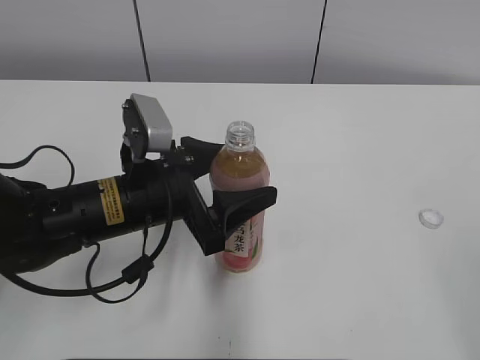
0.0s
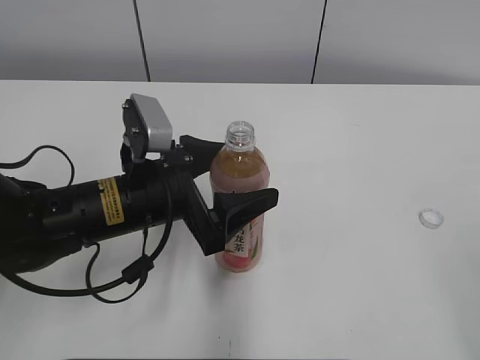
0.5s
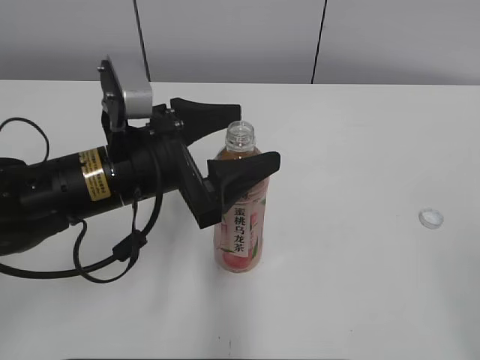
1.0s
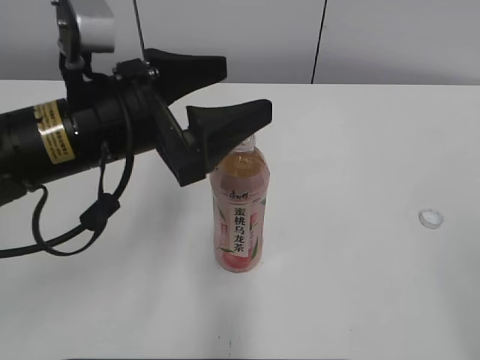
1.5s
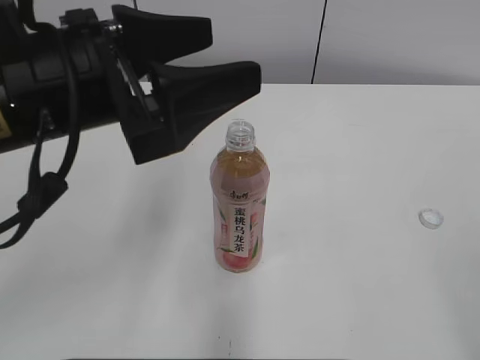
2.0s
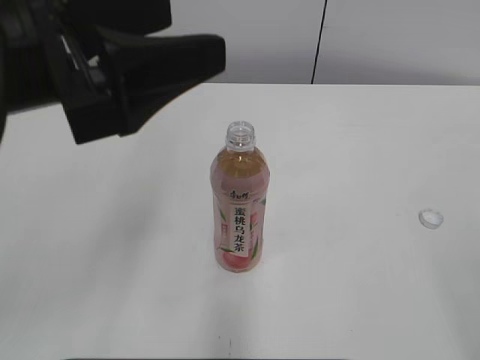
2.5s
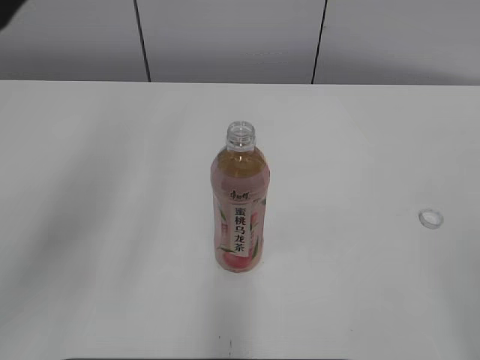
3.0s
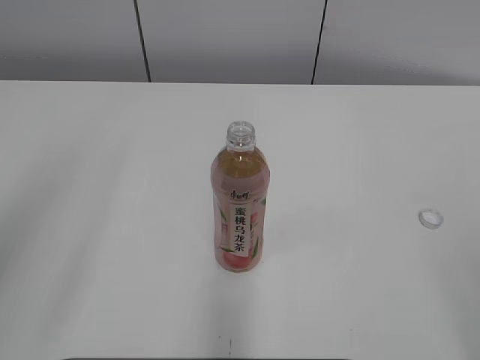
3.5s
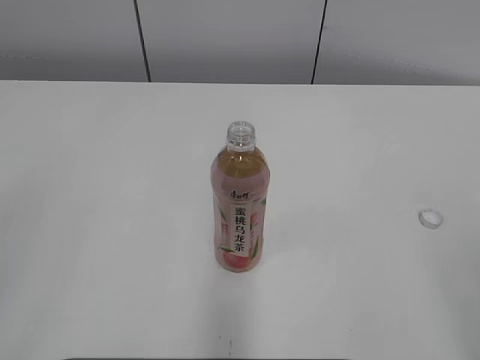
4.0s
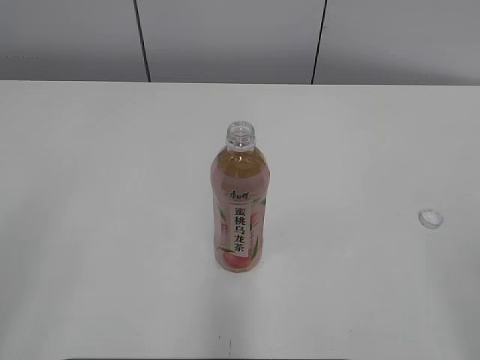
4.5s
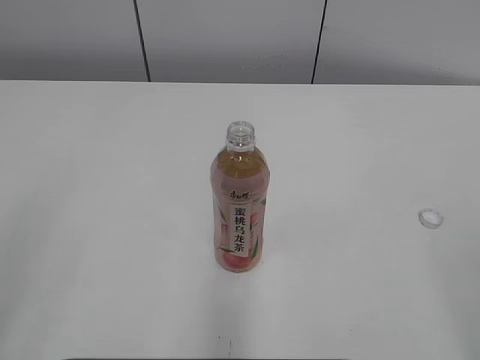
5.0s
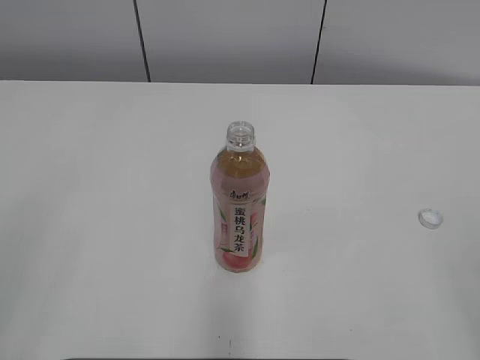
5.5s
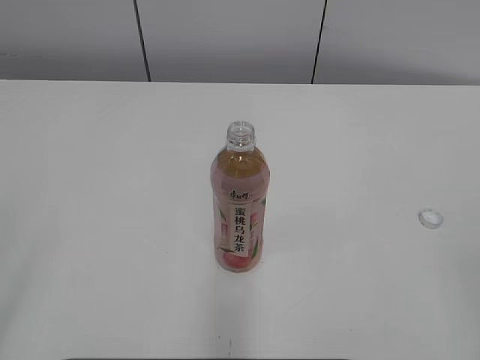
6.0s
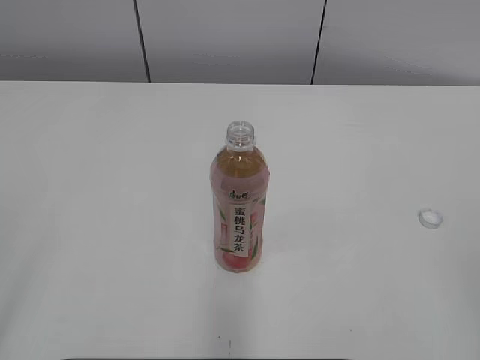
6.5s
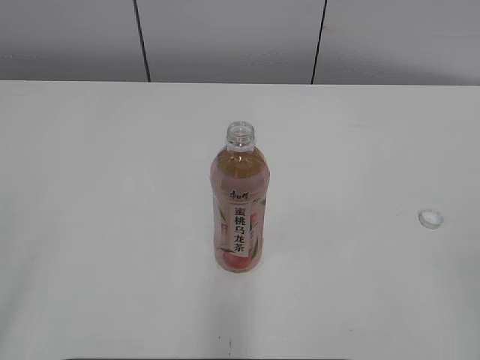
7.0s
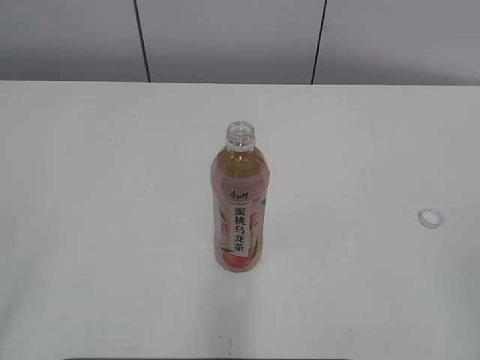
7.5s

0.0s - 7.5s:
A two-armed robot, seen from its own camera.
0.0s - 2.0s: The left gripper goes some 15 cm upward.
2.0s - 4.0s: The left gripper is displaced backward and to the left by approximately 25 cm.

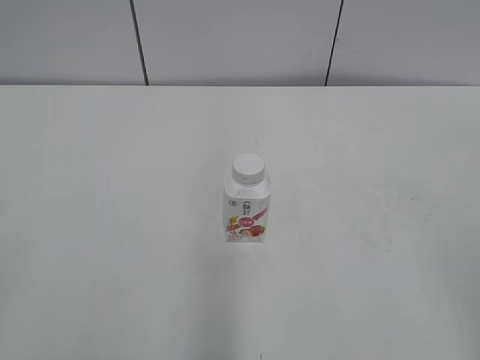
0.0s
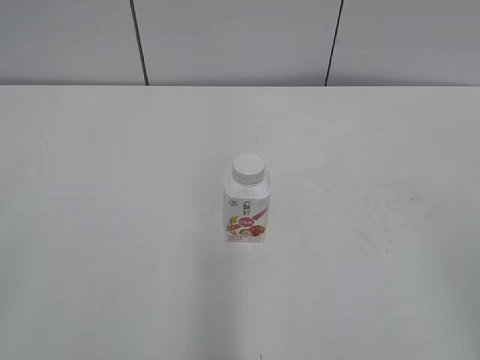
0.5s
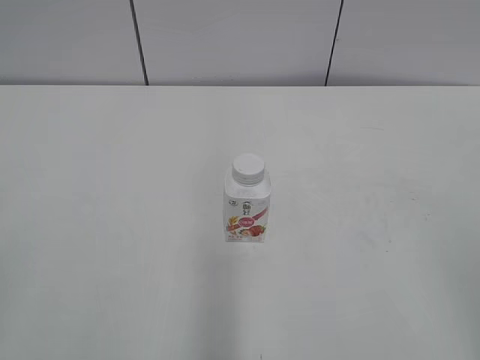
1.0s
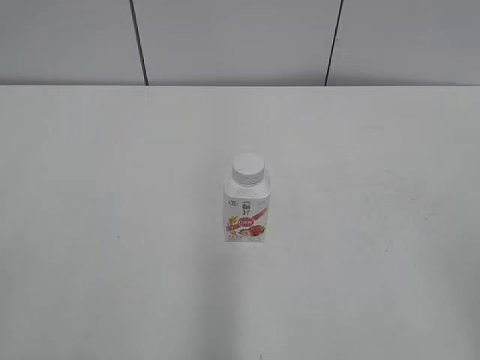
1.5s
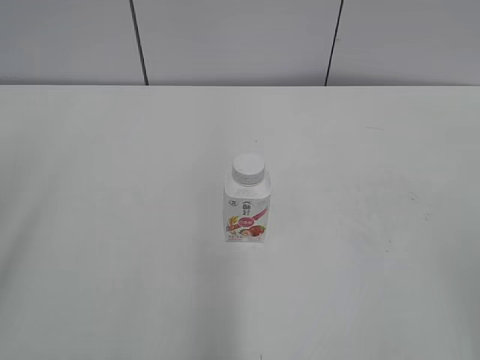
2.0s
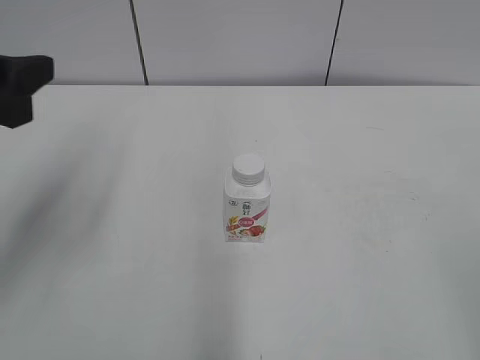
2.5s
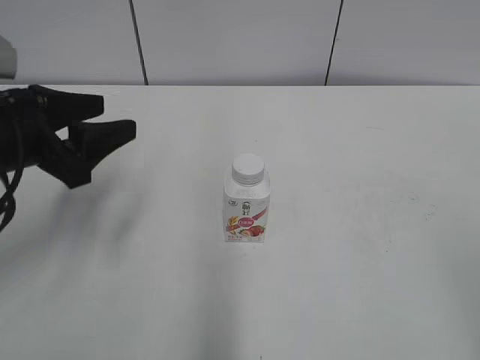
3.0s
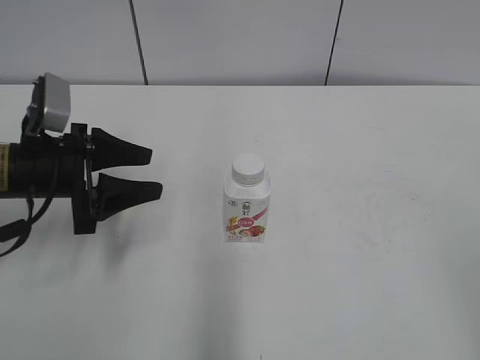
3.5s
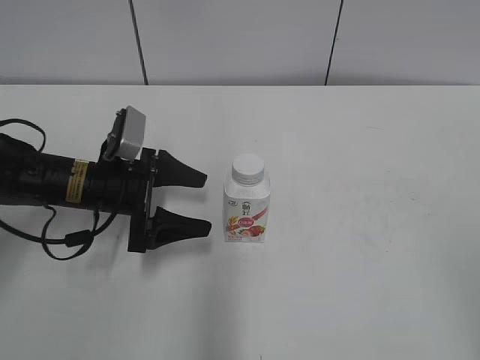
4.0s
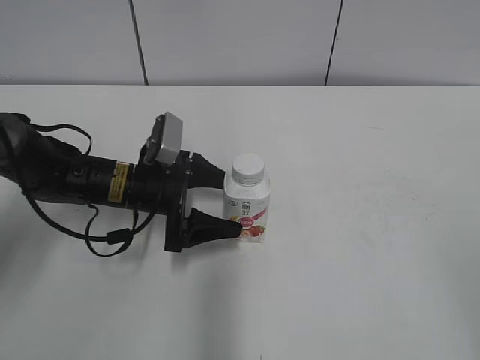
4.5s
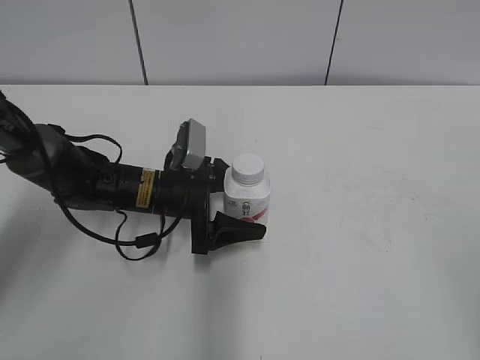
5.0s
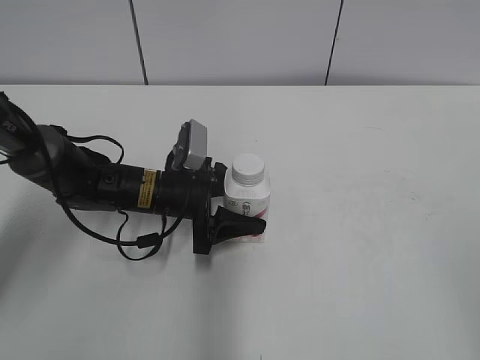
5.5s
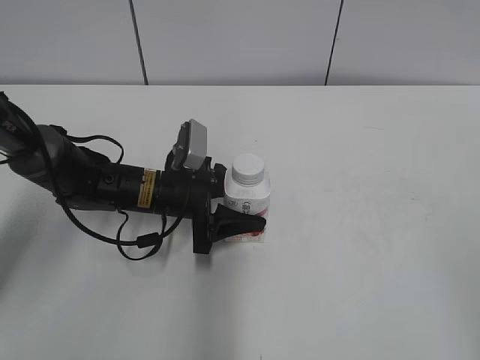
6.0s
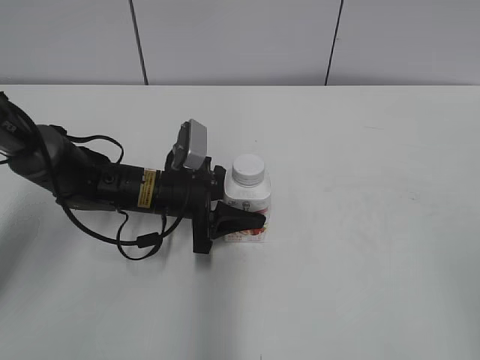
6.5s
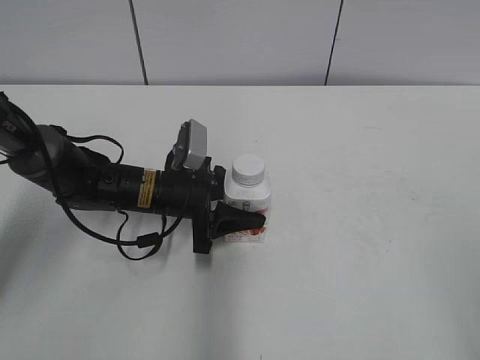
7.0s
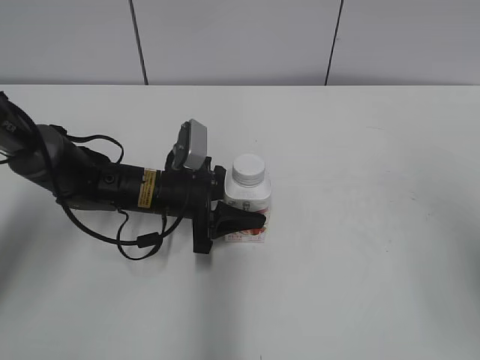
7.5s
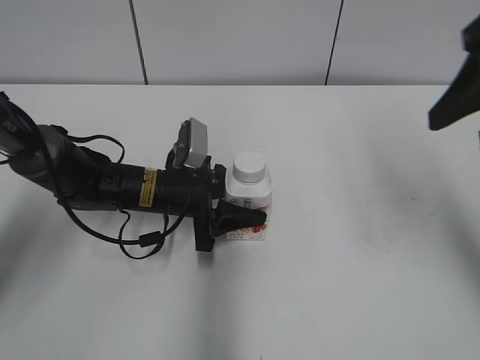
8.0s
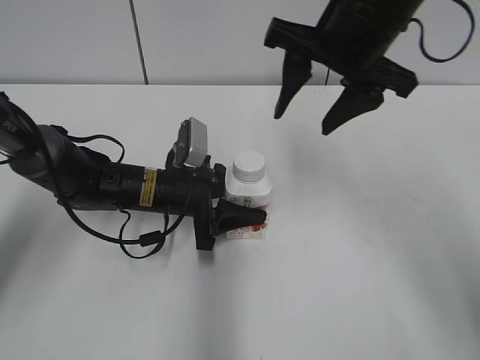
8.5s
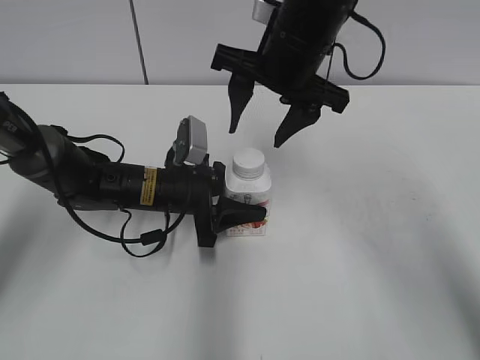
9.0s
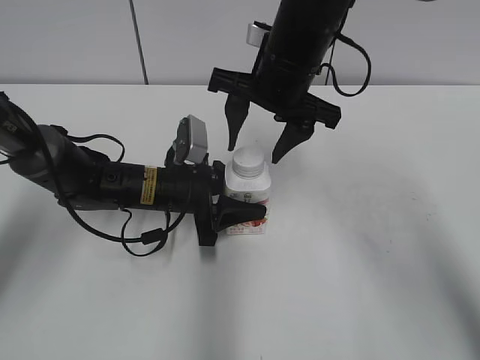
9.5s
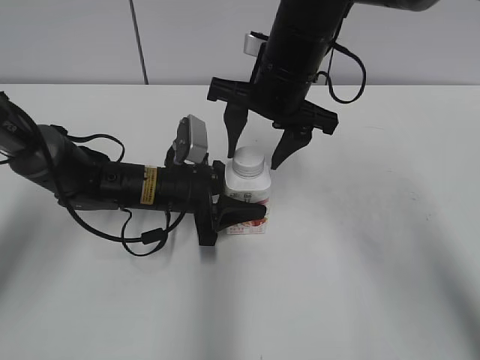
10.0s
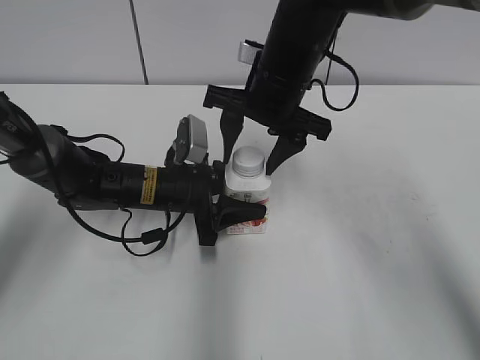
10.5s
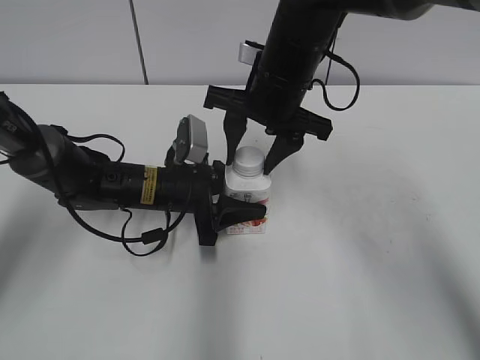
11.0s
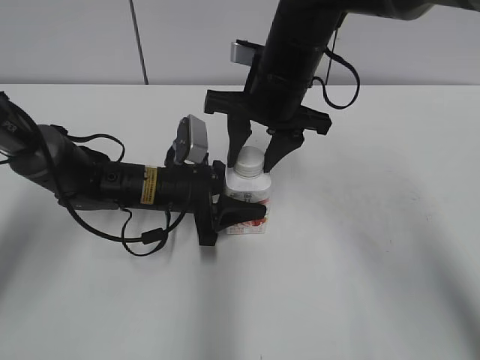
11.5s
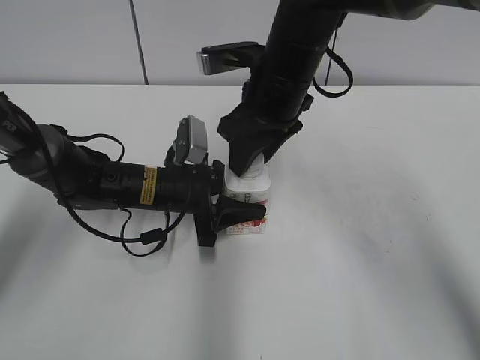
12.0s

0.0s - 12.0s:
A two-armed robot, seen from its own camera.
Step, 0.0s - 5.5s: Grab the Yili Changqing with the left hand.
2.0s - 4.0s: The left gripper shifts about 40 cm downward, forward and to the right.
4.0s - 6.0s: The left gripper heads to the right, covering about 5 cm, and closes its fingers.
6.0s - 8.0s: The right gripper moves forward, some 25 cm.
8.0s - 10.0s: The right gripper heads to the left, forward and downward, covering approximately 25 cm.
10.0s - 12.0s: The right gripper closes its fingers.

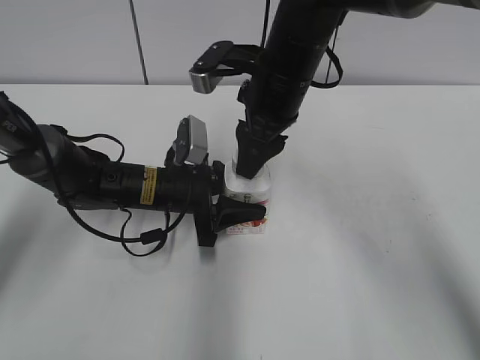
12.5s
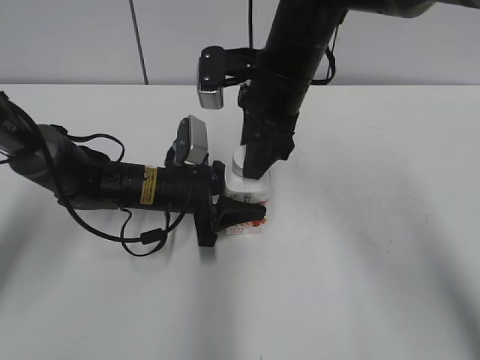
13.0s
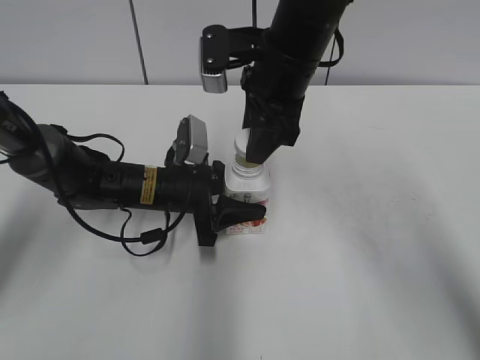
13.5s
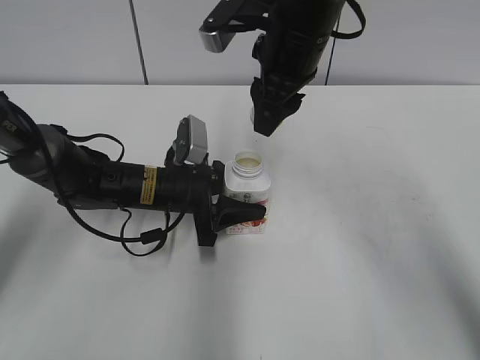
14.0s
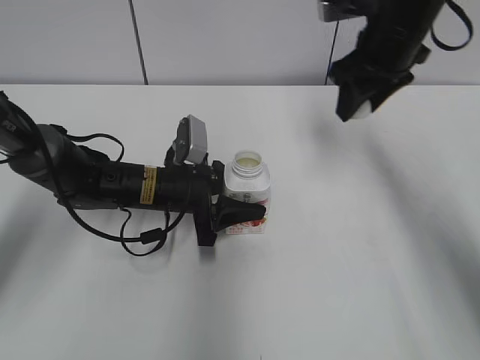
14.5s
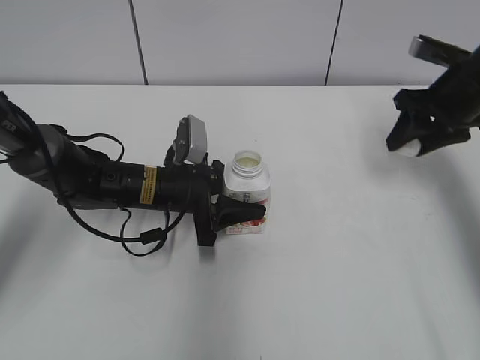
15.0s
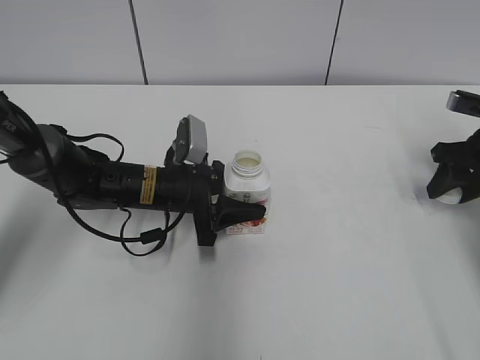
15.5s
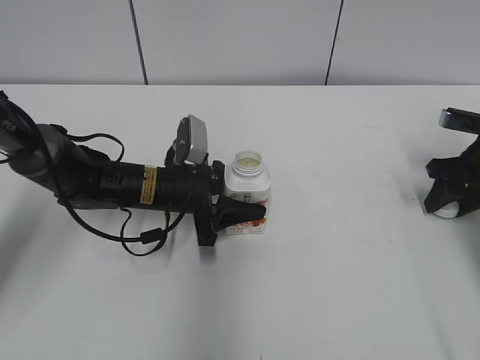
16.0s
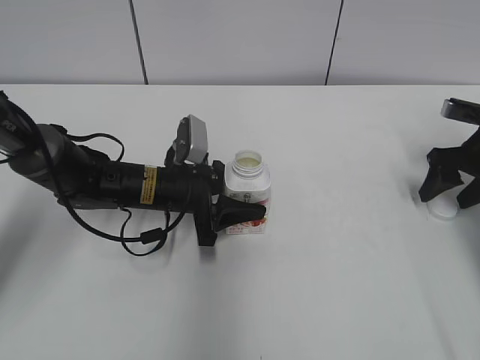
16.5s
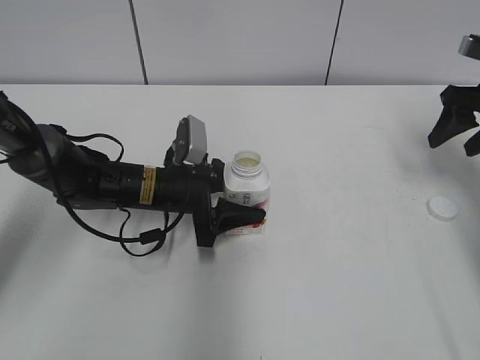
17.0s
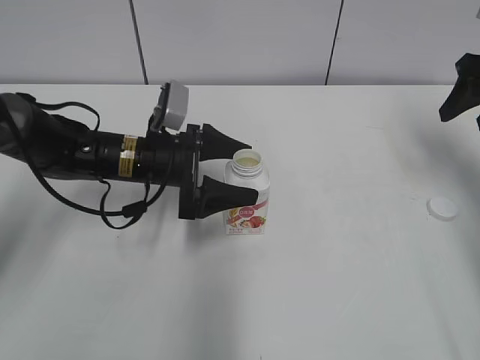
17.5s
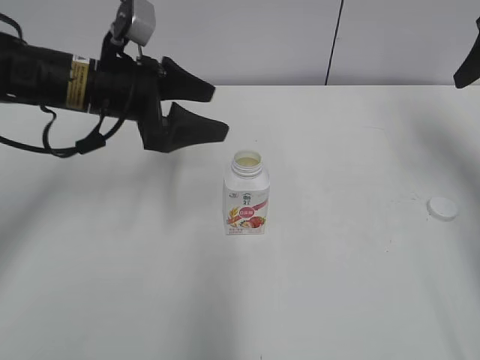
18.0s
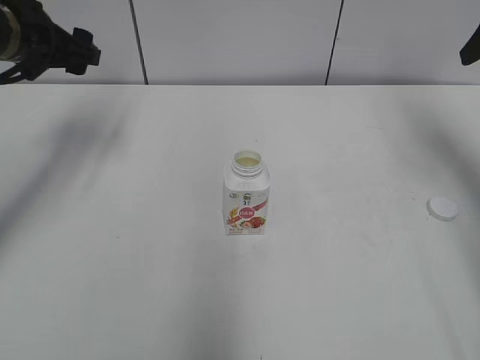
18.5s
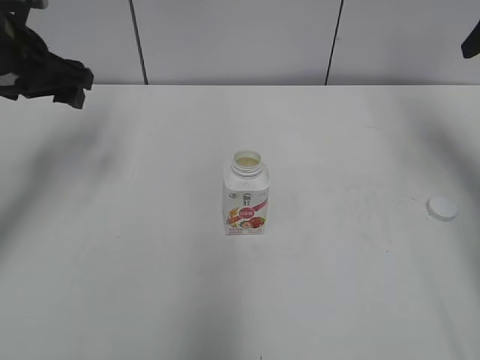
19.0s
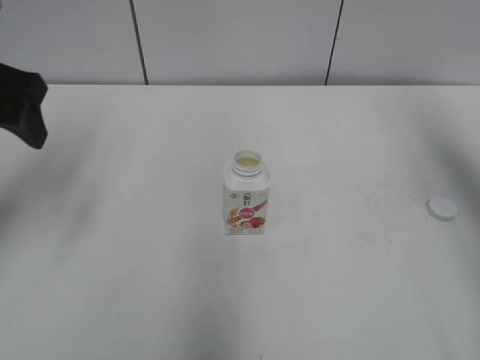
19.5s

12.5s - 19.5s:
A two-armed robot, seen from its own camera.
Step, 14.0s - 16.5s: Place the bottle cap on the right.
Step, 17.0s - 17.5s: Place the Yili Changqing with the left hand.
12.5s - 14.5s: The right gripper shifts approximately 15 cm to the right and forward.
14.5s - 16.0s: The right gripper shifts some 20 cm to the right and downward.
16.0s - 17.5s: The right gripper moves upward, about 15 cm, and opens up; the left gripper opens up.
17.5s - 19.5s: The right gripper shifts some 15 cm upward and backward, while the left gripper heads upward and to the left, covering roughly 25 cm.
